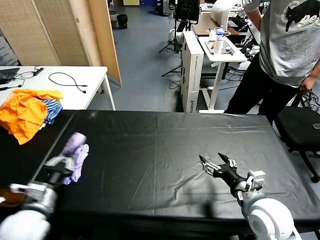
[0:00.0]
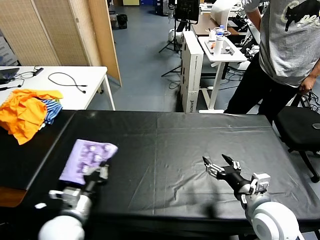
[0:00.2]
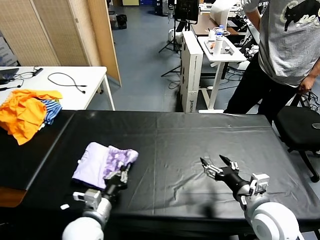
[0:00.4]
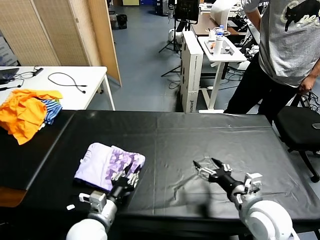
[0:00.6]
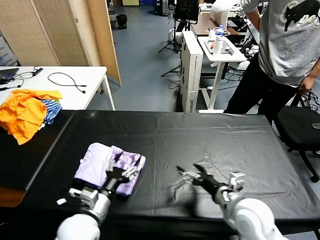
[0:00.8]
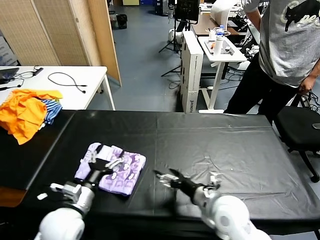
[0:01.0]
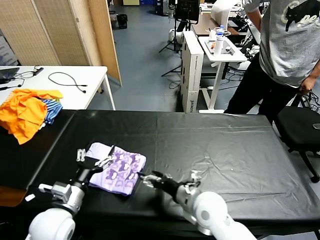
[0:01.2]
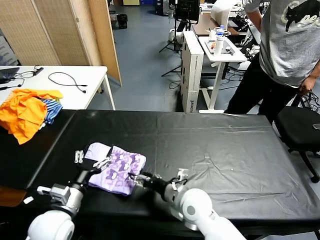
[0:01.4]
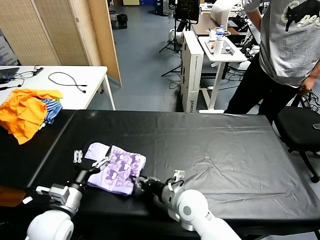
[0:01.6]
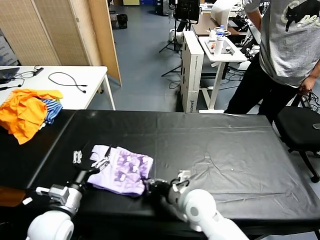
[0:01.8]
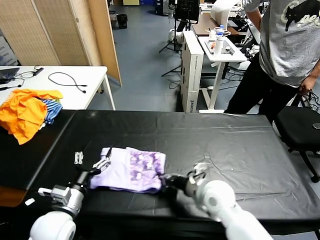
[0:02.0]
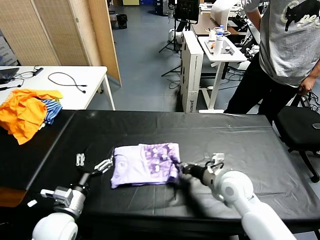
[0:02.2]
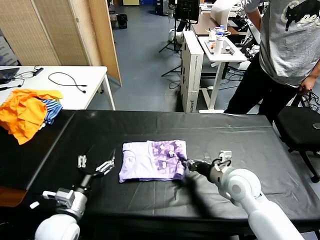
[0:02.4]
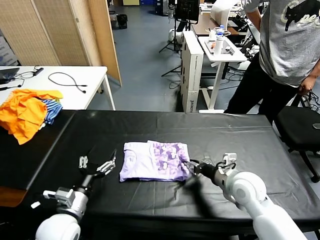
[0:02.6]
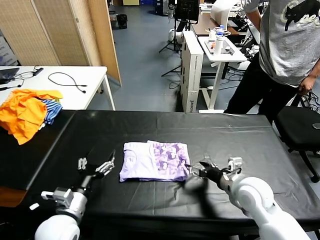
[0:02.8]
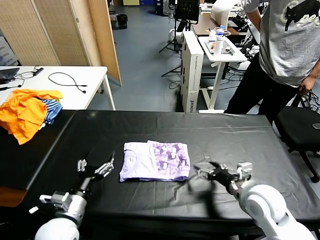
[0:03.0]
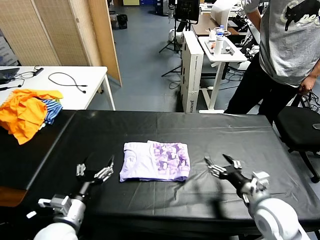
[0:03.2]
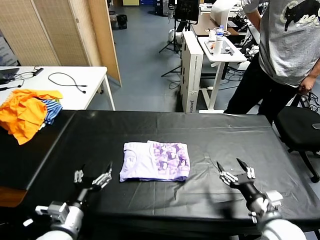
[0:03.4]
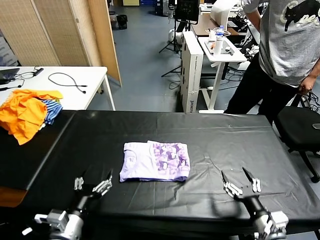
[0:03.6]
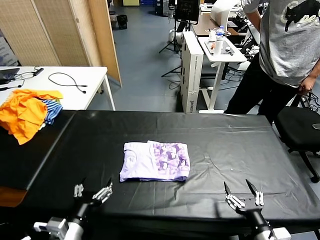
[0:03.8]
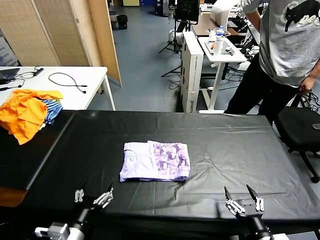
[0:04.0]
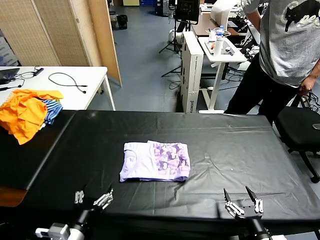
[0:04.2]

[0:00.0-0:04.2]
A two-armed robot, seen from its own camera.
Task of the whole recording: fold and organize the clothes.
Step, 0:01.2 to 0:02.8: Drag the clothes to the center of the table.
0:00.0 to 0:01.4: The left gripper shifts approximately 10 cm to the right, and opens up; the right gripper heads to the left and downward, covering some 20 cm.
0:01.4 to 0:02.8: The right gripper heads to the right, covering some 15 cm, and closes and opens again.
0:02.8 to 0:04.2: The right gripper is displaced backward by some 20 cm. Meanwhile the left gripper moves backward, roughly 10 cm.
